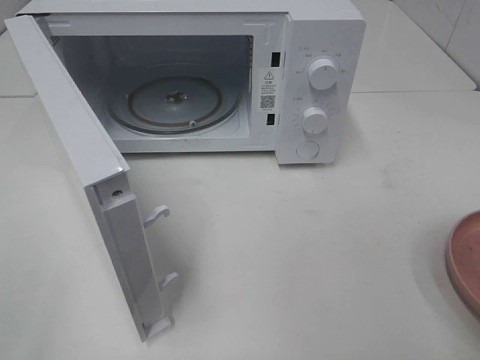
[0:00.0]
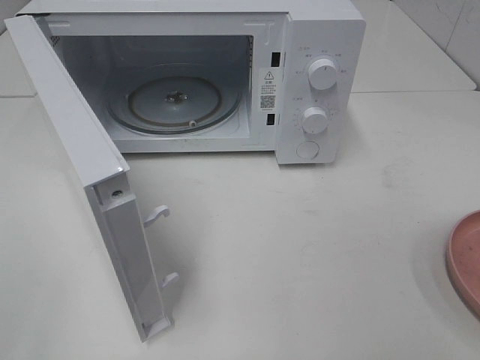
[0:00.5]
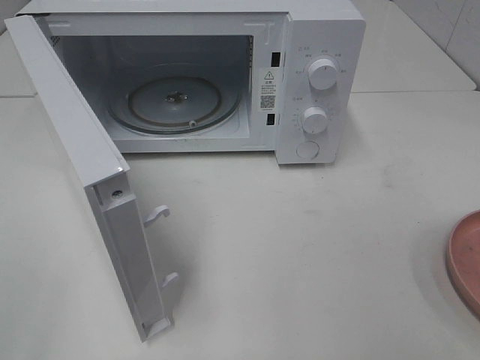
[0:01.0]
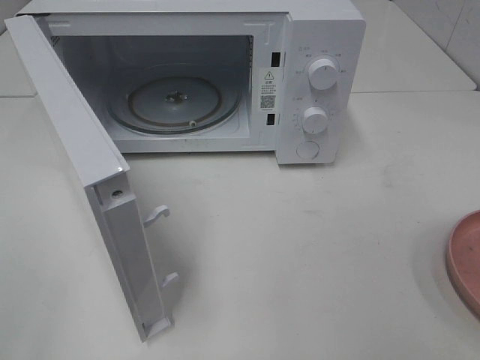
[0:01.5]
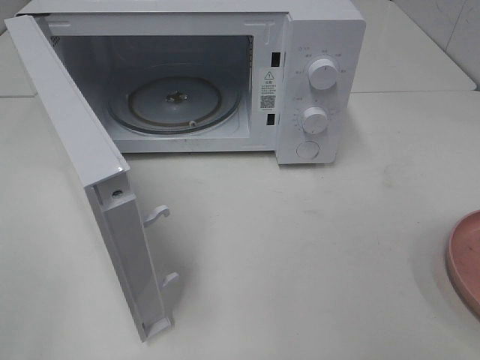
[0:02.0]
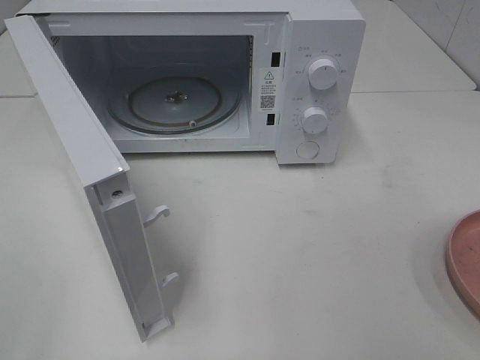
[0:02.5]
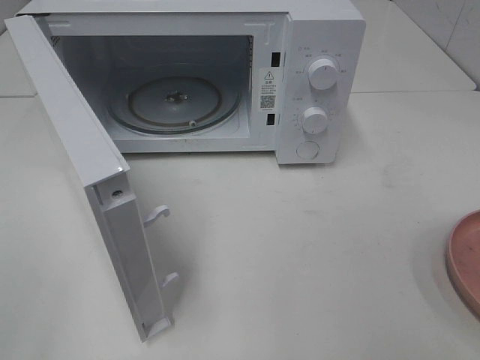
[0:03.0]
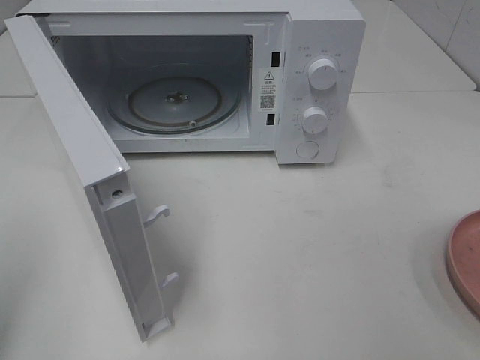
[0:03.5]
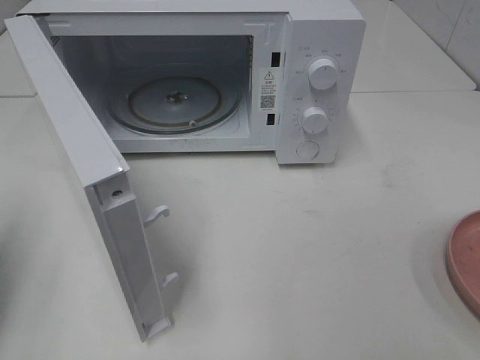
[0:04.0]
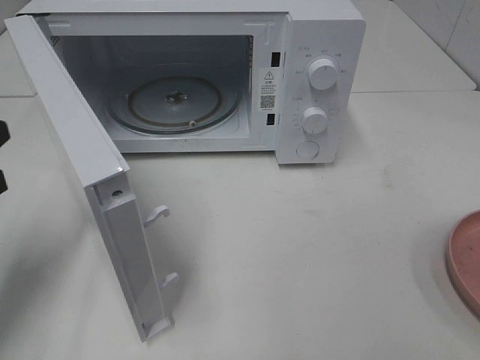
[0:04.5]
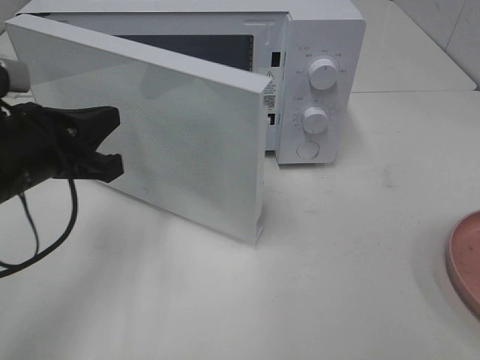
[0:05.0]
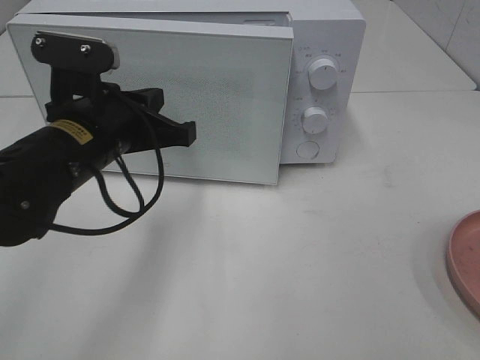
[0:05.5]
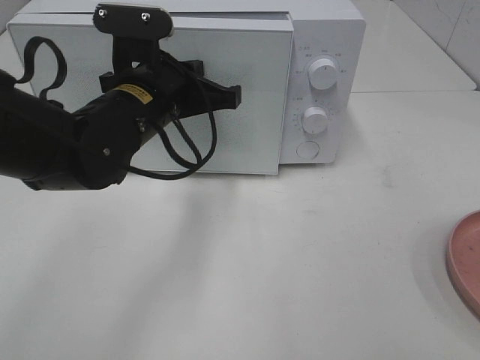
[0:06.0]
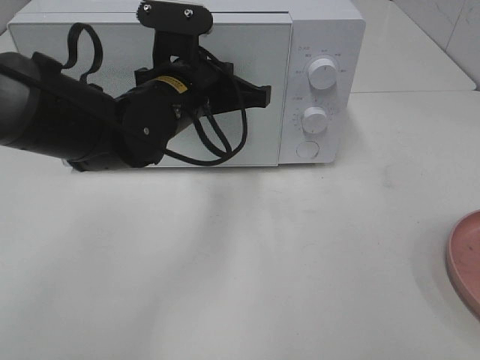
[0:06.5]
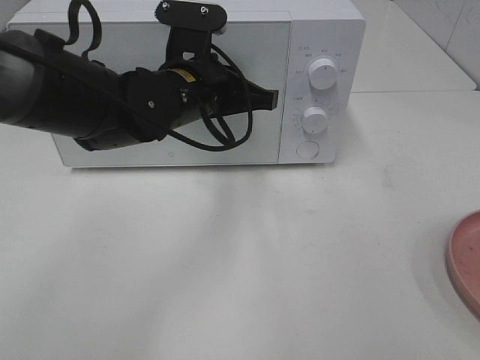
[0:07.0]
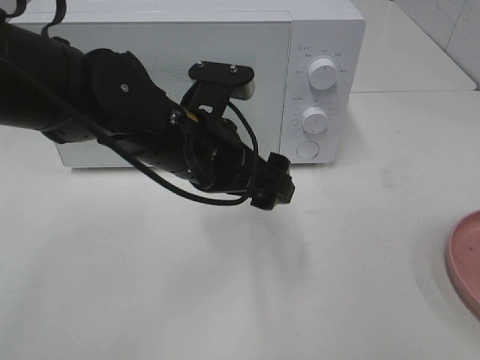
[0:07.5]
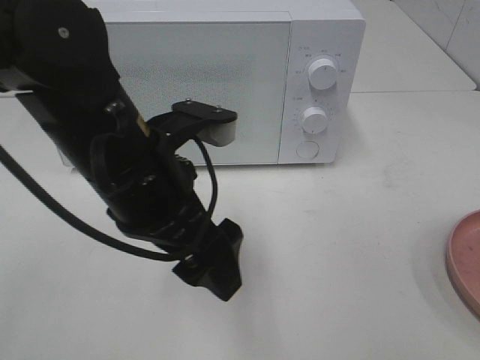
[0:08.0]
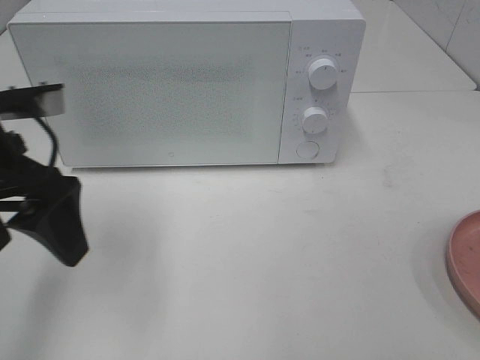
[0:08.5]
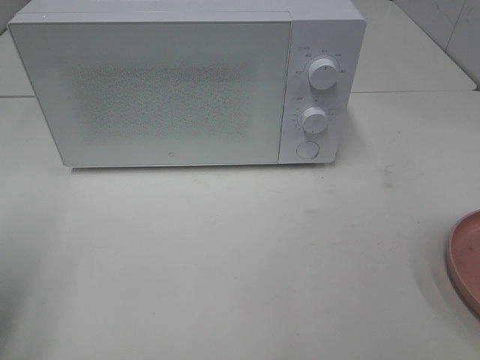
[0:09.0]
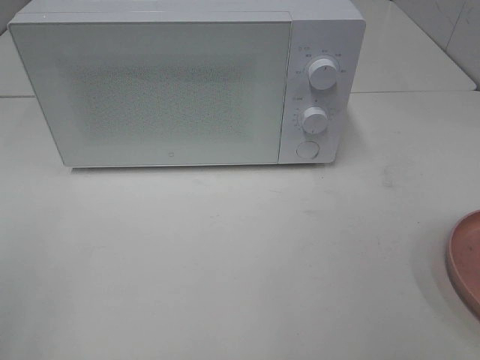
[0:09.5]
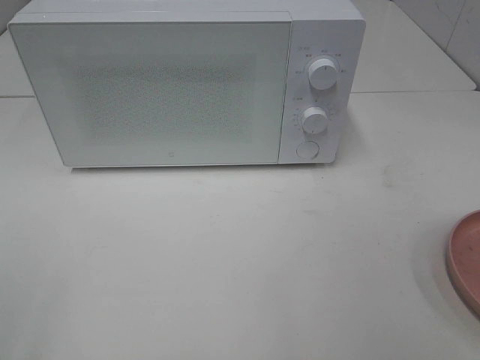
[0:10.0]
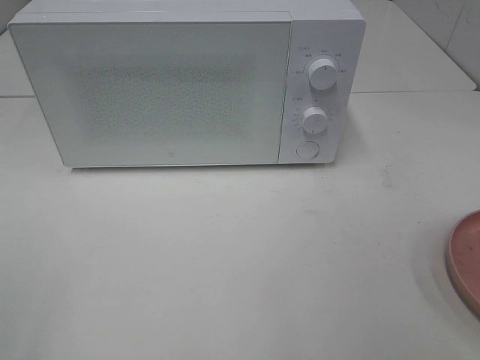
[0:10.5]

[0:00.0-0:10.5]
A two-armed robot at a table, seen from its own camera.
Task of the whole recording: Heat the burger.
Step, 0:00.0 to 0:07.0: Left hand: close the microwave door.
0:02.0 to 0:04.0: The left gripper shifts some 15 cm forward, and closes its fingers.
0:04.0 to 0:06.5: The left gripper heads to the right and forward, covering roughly 35 cm.
0:06.5 to 0:08.5: The left gripper moves to the left and backward, roughly 20 cm, and opens.
0:08.5 to 0:10.5: The left gripper heads backward and to the left, covering approximately 25 cm.

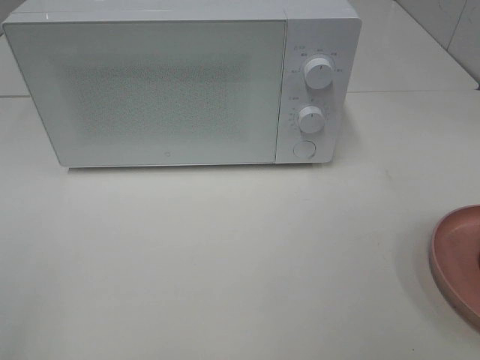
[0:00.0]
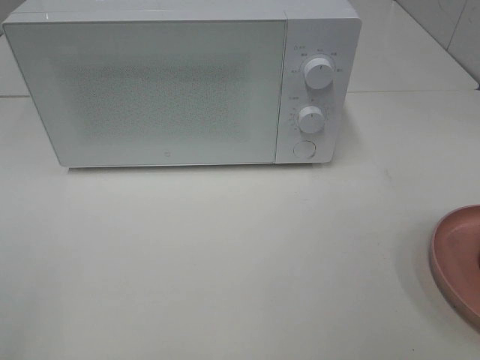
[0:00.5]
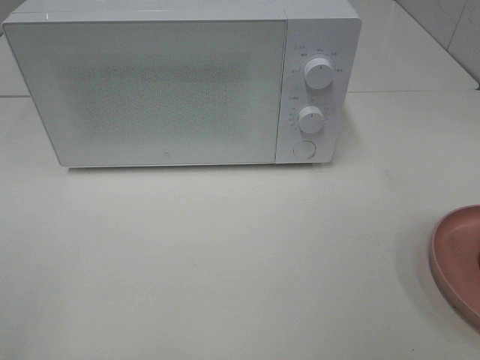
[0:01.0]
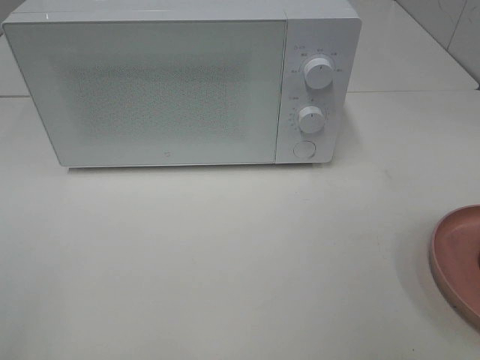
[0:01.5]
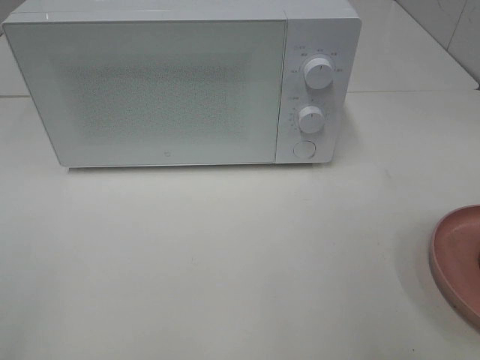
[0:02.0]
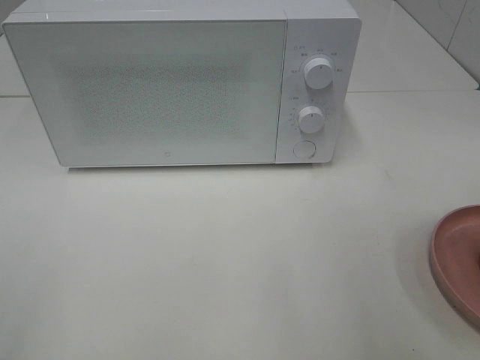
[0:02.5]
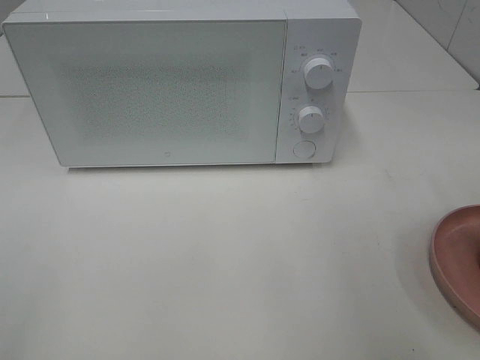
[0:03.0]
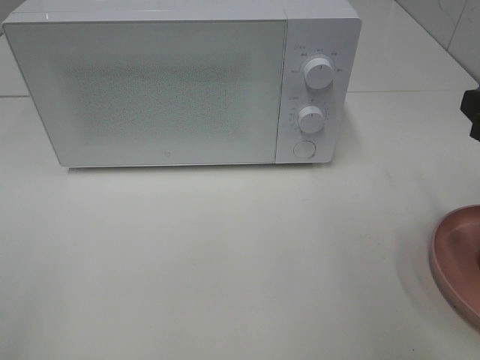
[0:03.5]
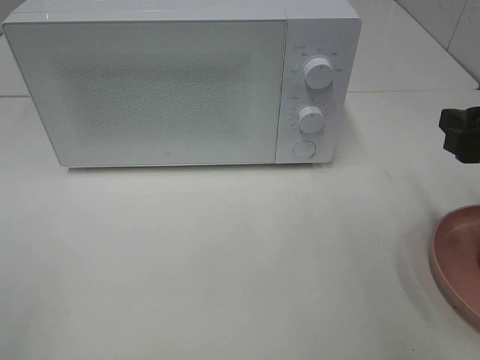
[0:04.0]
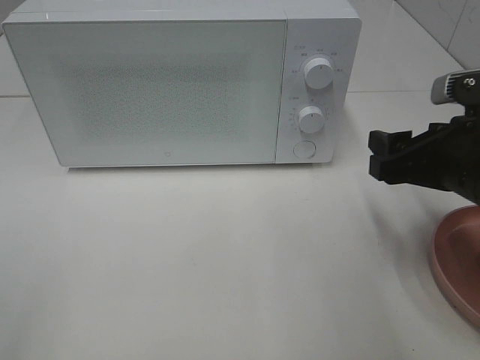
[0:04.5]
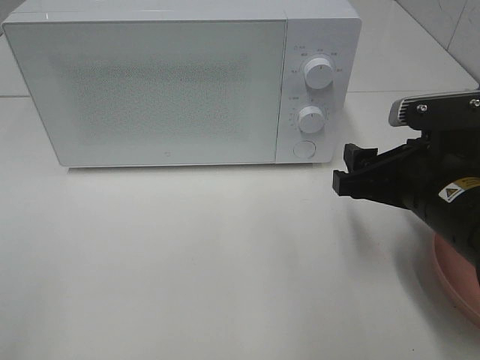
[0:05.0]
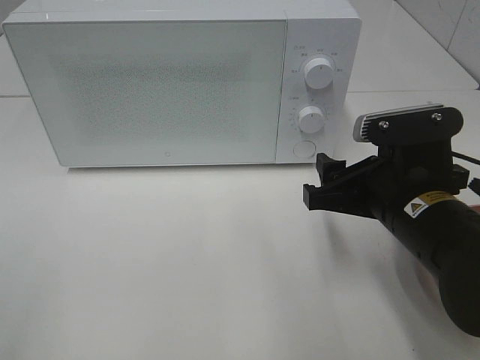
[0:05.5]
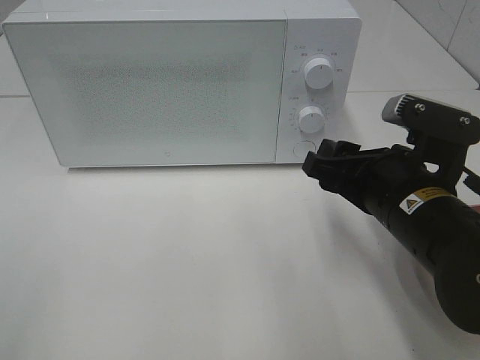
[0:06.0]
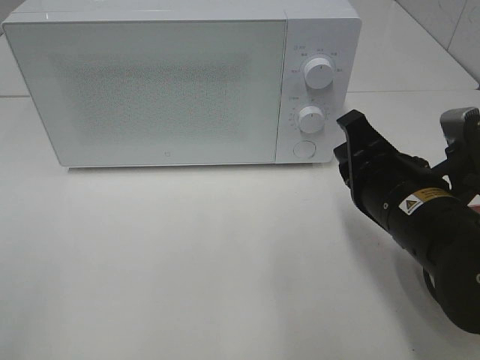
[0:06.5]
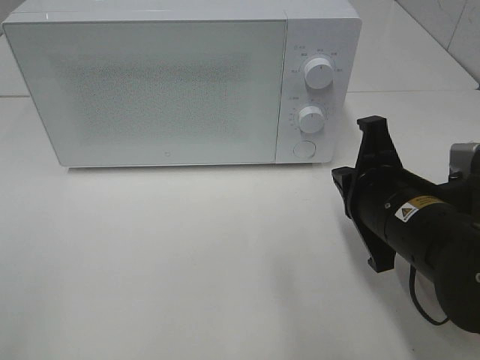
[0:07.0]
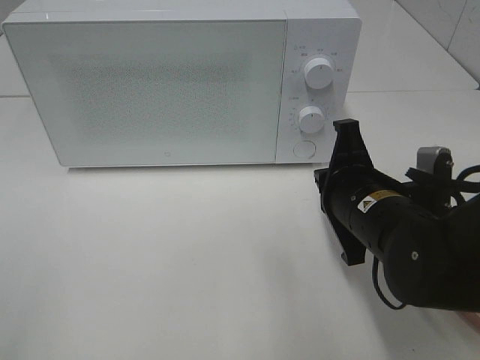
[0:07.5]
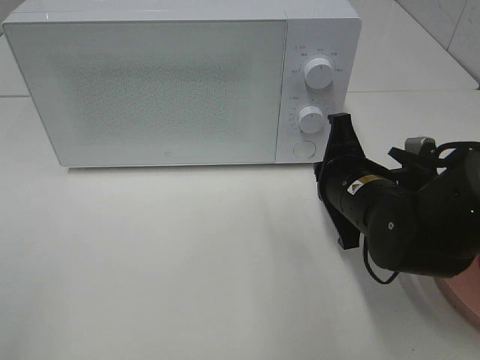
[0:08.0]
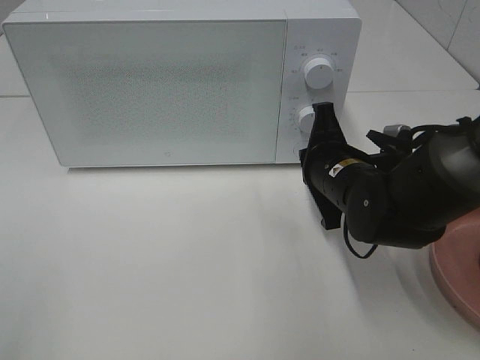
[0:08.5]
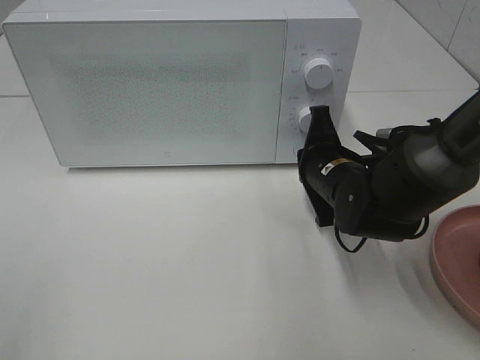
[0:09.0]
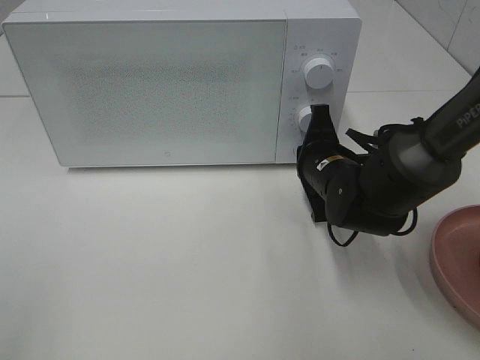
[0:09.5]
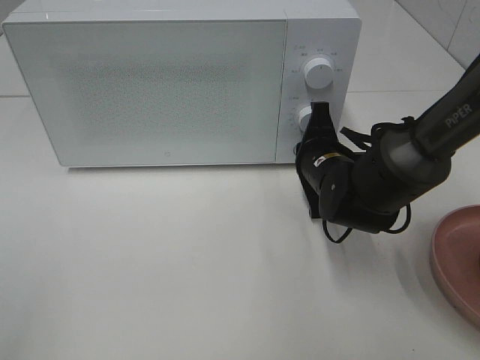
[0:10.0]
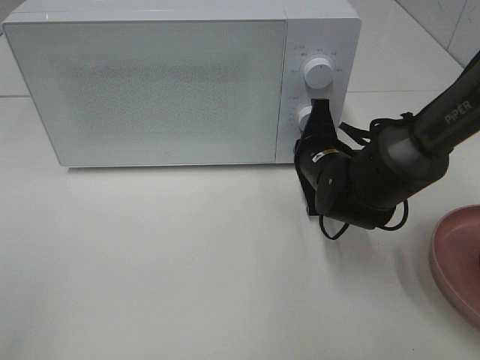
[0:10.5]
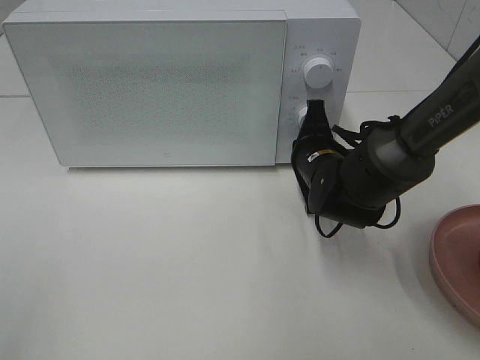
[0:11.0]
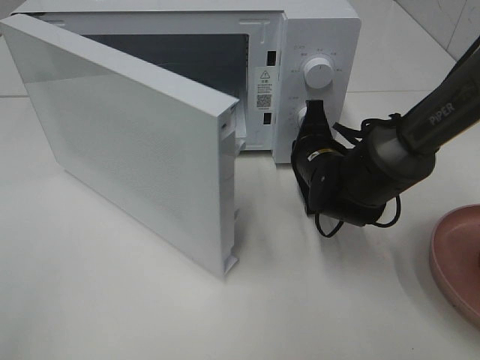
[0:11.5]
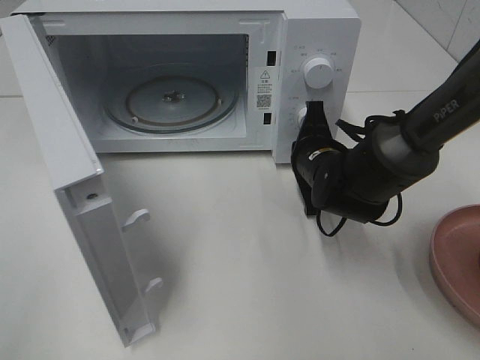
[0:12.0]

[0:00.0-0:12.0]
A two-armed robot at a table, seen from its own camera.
Task of the whole recording: Heat the burger.
0:02.0 to 0:04.0: The right gripper is displaced forward and downward by approximately 15 cm.
0:04.0 to 0:06.0: The right gripper is displaced to the left and downward by approximately 15 cm.
0:06.0 to 0:08.0: The right gripper goes approximately 5 cm forward, and closes its fingers.
0:08.0 to 0:10.0: The right gripper is displaced forward by about 5 cm.

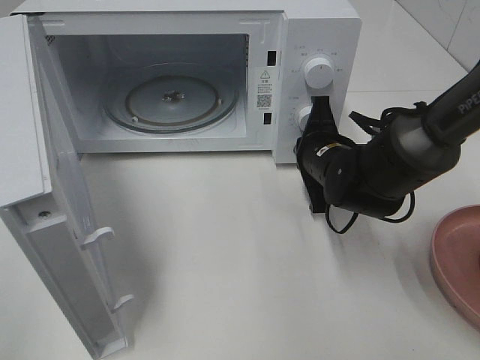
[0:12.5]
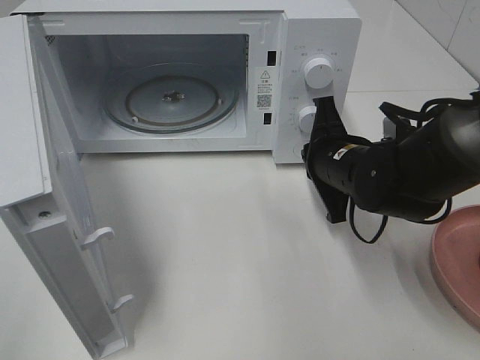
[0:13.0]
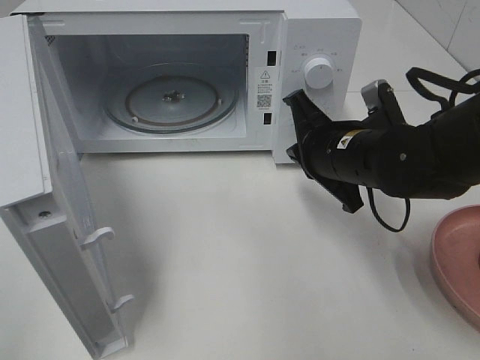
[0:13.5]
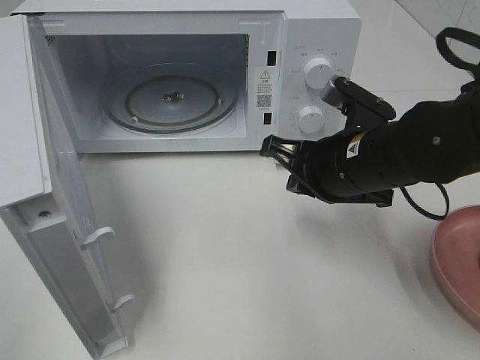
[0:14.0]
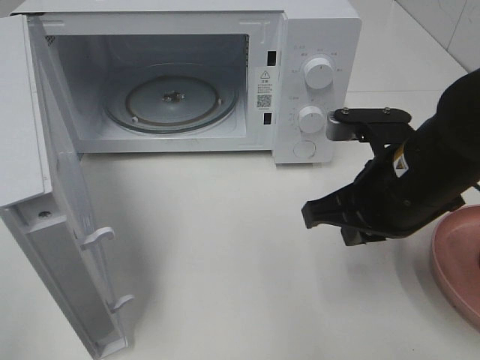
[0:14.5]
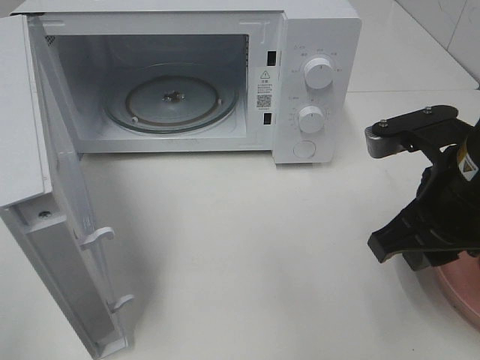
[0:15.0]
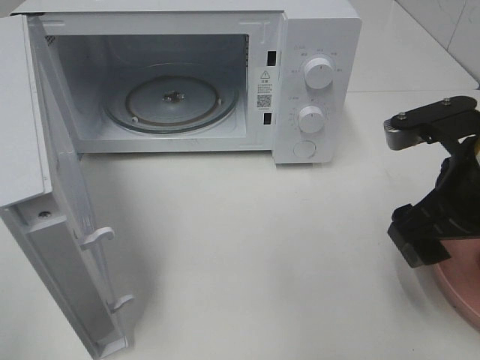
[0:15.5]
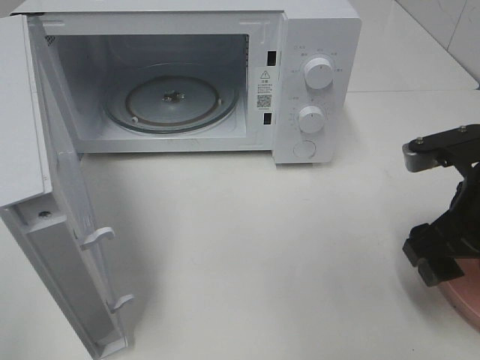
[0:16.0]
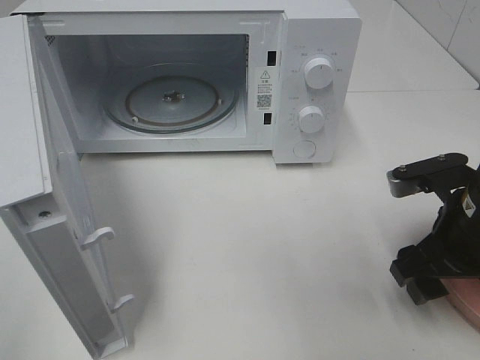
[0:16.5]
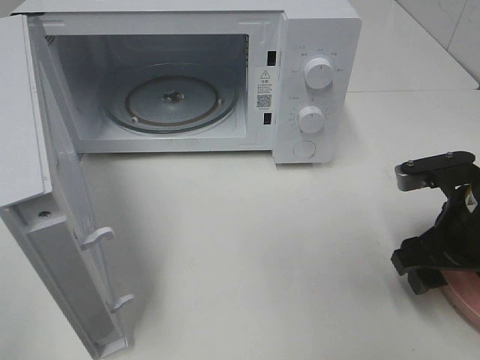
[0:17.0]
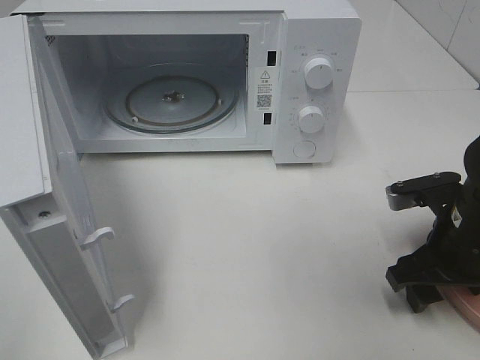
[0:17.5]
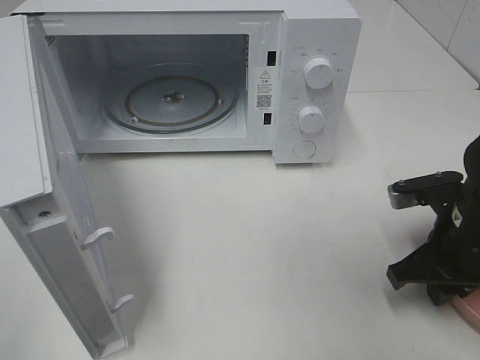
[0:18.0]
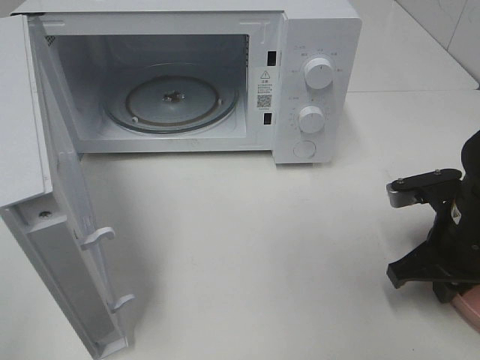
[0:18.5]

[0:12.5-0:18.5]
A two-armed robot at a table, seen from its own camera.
Task of the whole recording: Heat the burger.
Step, 0:13.0 to 0:18.0: Right hand: grab the plate with the hamburger.
0:12.5 to 0:14.5: The right gripper moves backward and upward, some 15 cm.
0:14.5 to 0:16.5: The right gripper is displaced to the right by roughly 5 cm, and opens its fingers.
0:16.5 to 0:18.5: The right gripper closes its fingers.
